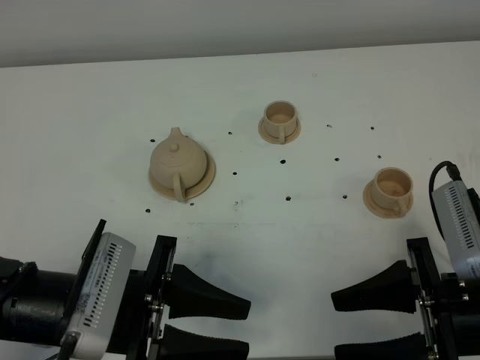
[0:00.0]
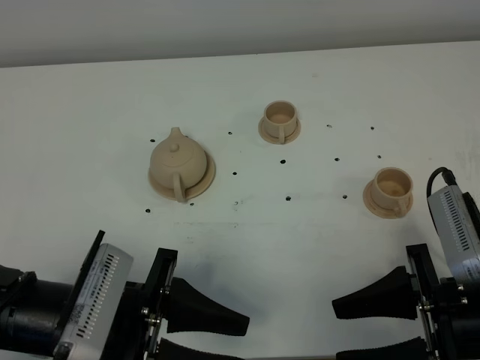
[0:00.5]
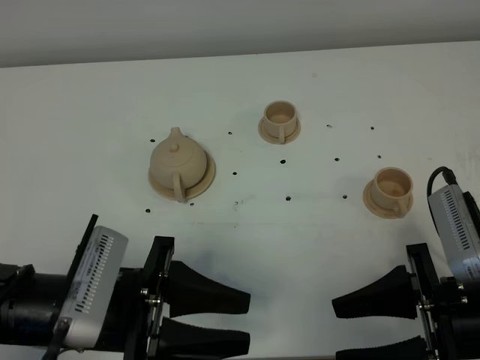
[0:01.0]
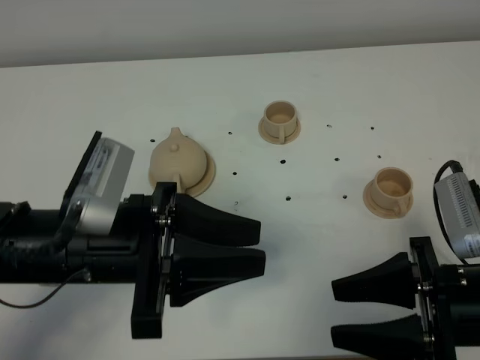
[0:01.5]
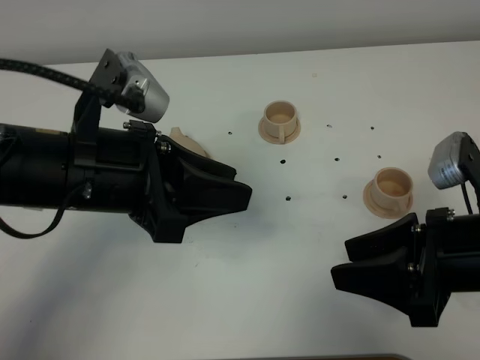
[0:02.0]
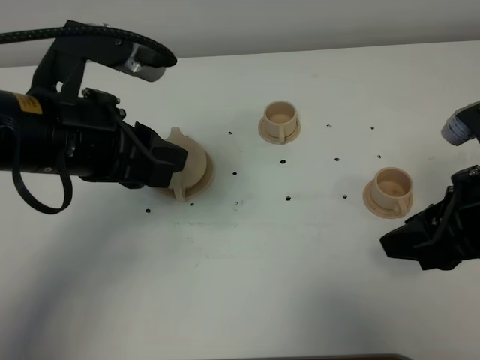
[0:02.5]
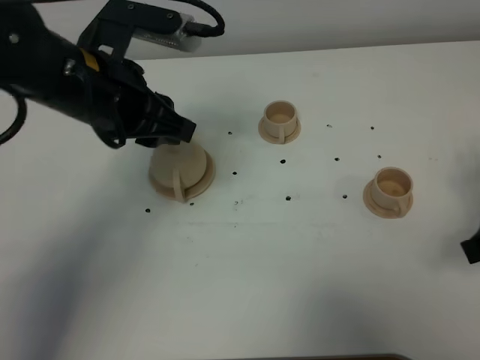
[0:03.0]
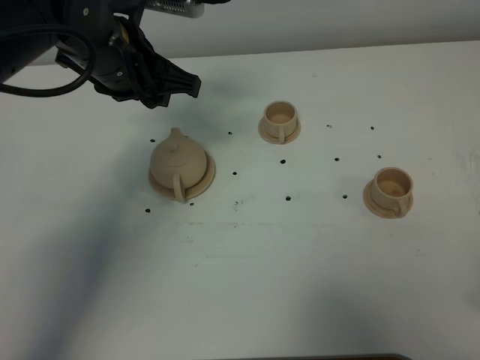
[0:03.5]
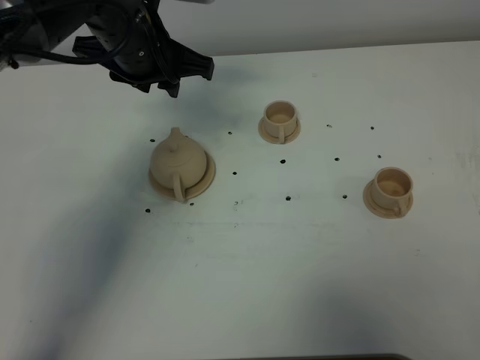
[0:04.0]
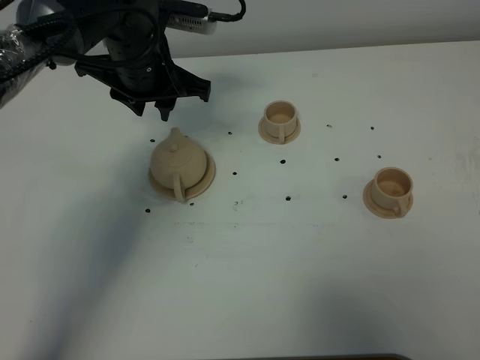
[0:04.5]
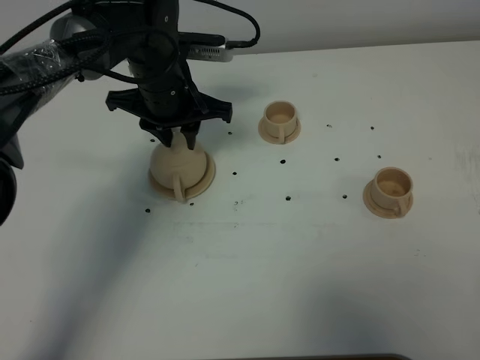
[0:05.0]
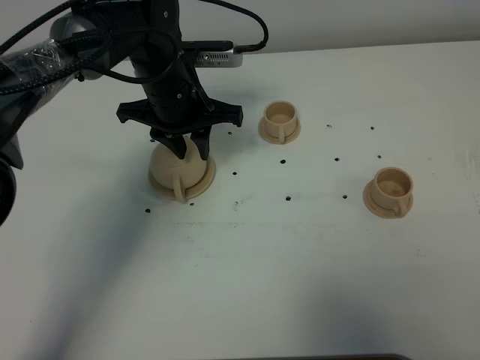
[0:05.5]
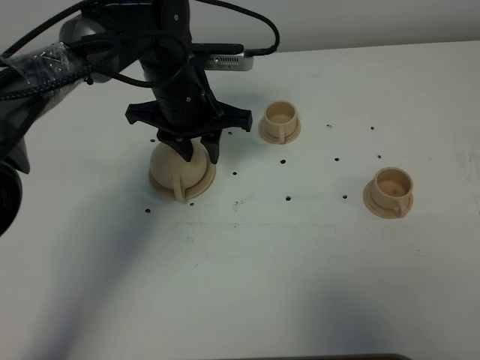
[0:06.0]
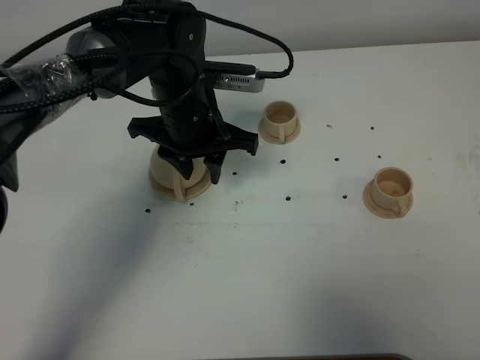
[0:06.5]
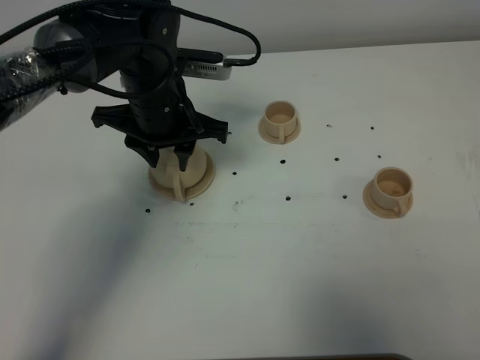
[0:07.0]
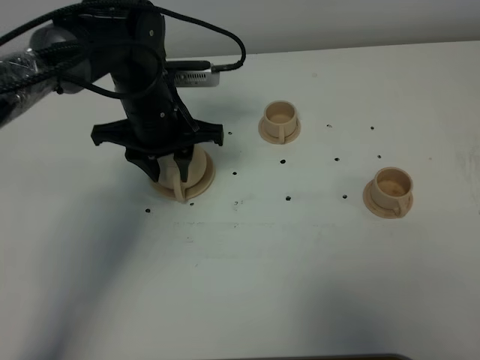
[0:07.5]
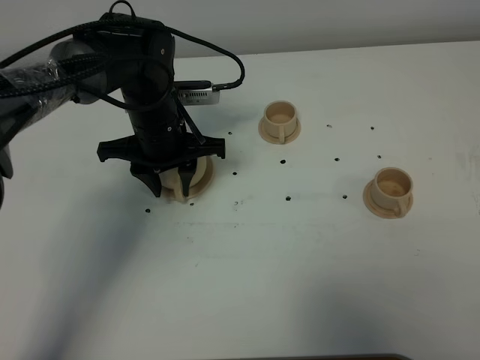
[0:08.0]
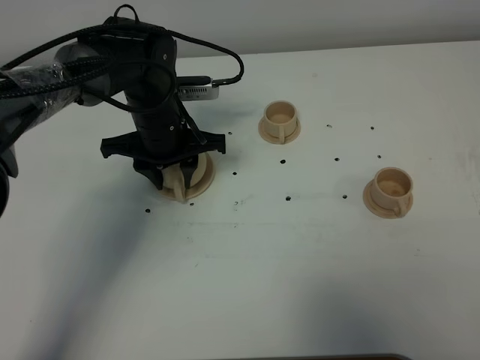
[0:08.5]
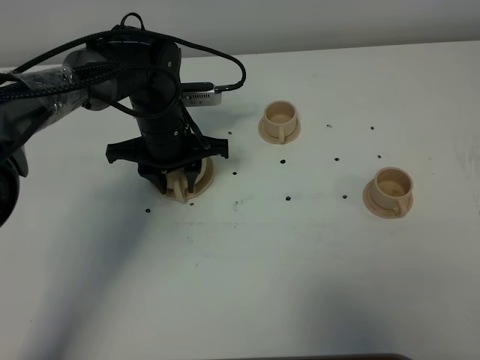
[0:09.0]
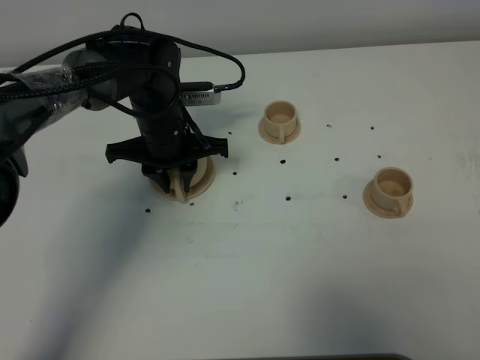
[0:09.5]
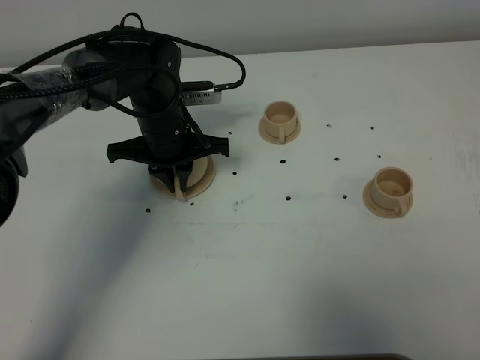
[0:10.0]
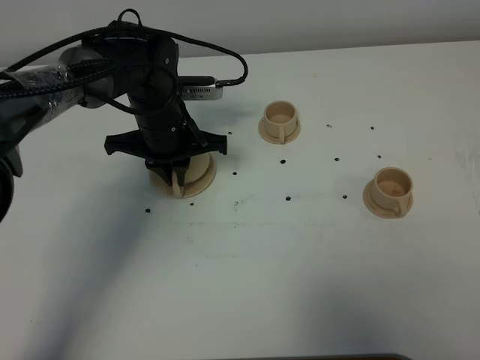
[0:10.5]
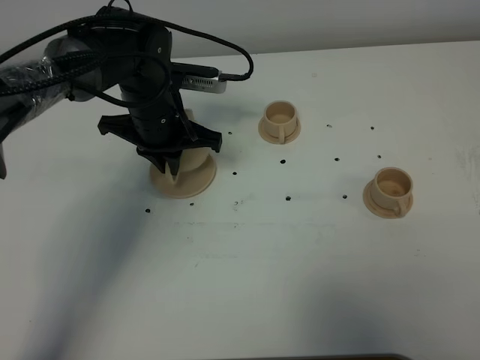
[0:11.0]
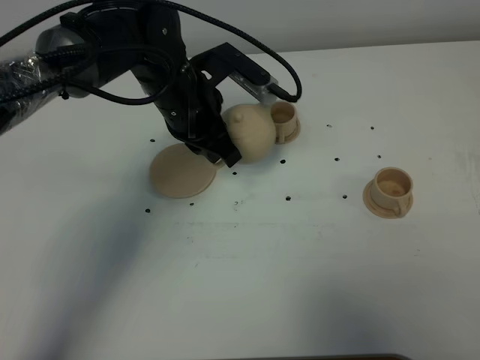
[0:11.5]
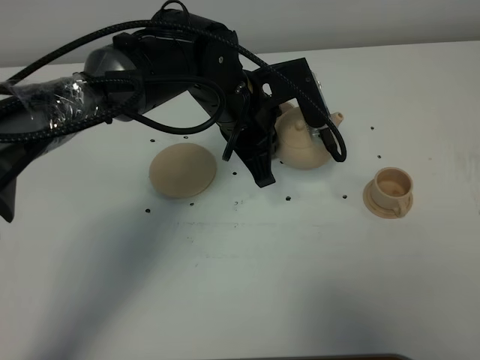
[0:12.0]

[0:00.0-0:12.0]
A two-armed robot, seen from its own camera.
Task of the whole recording: grasp the brown teapot and pour the tea into the two brown teacups one by one, put the brown teapot back in its original place.
Step, 0:00.0 to 0:10.5: Pick up the teapot with the left gripper.
0:00.0 to 0:02.0: The left gripper travels upward and forward by roughly 15 cm.
0:02.0 to 0:04.0: The left gripper shifts roughly 20 cm forward. Meanwhile the right gripper travels backward and to the right by about 15 cm.
0:04.0 to 0:06.0: The left gripper travels downward by approximately 10 cm.
0:06.0 to 0:08.0: The left gripper moves approximately 5 cm.
0:08.0 to 0:10.0: The left gripper closes.
0:10.0 to 0:12.0: The left gripper is displaced to the right and upward by about 10 cm.

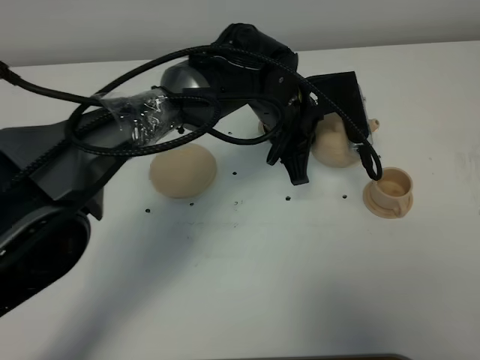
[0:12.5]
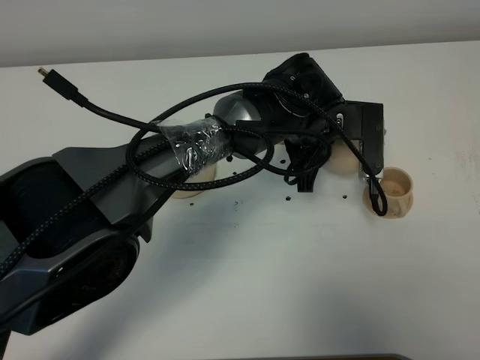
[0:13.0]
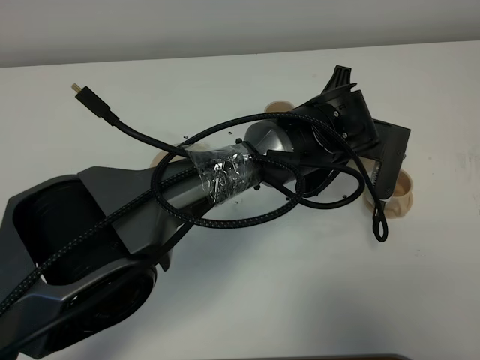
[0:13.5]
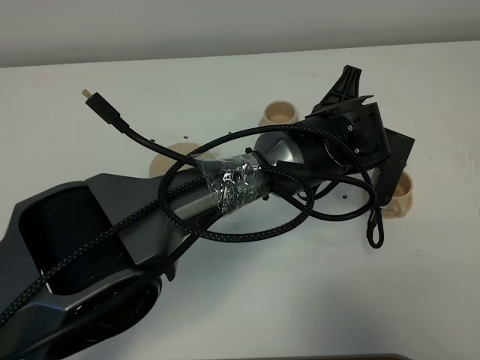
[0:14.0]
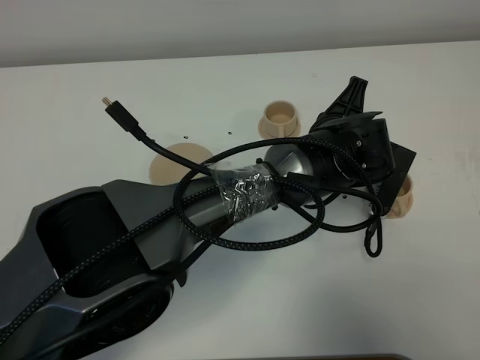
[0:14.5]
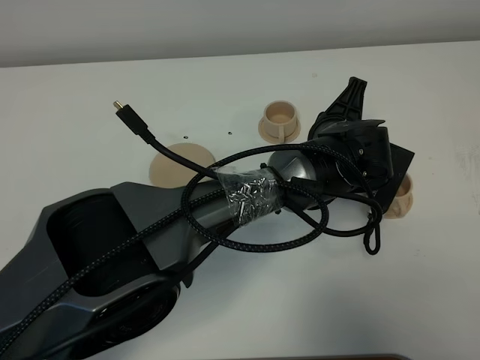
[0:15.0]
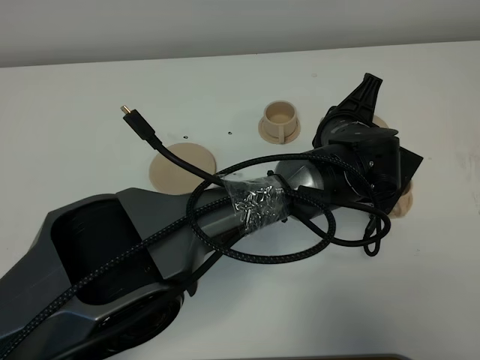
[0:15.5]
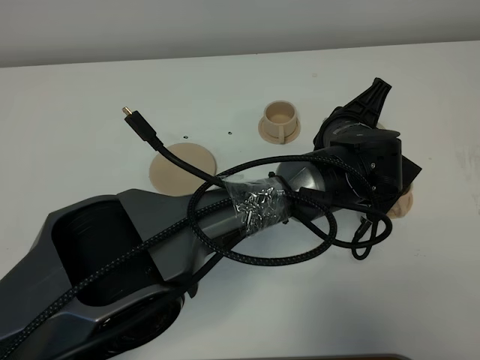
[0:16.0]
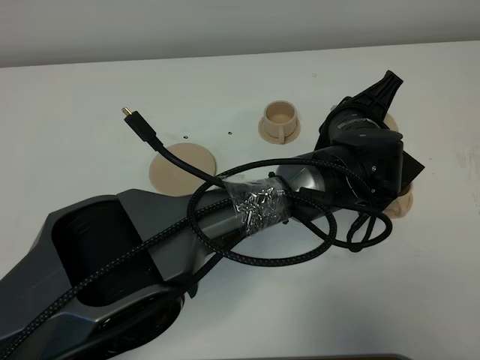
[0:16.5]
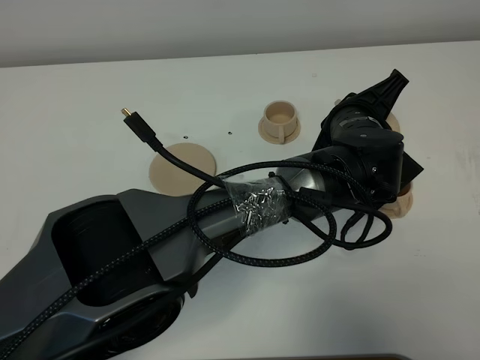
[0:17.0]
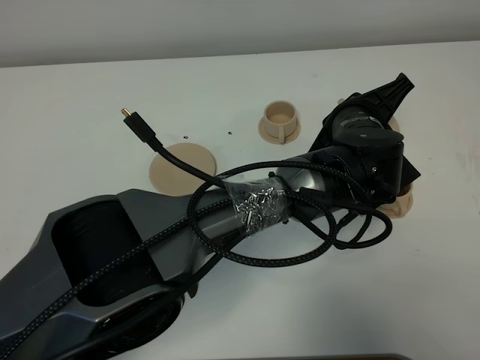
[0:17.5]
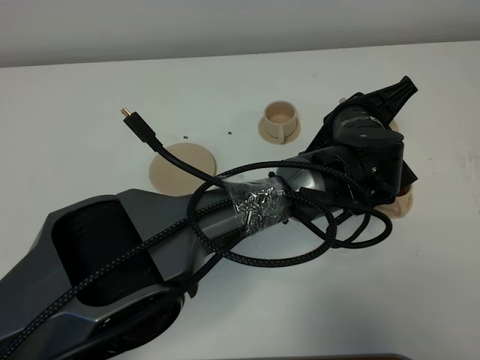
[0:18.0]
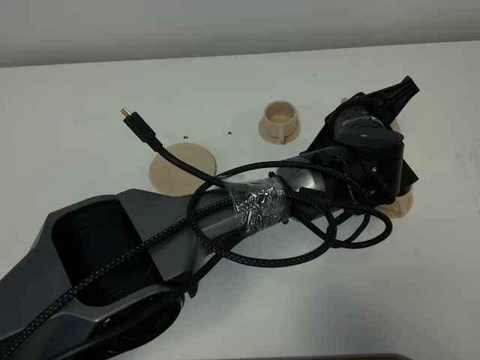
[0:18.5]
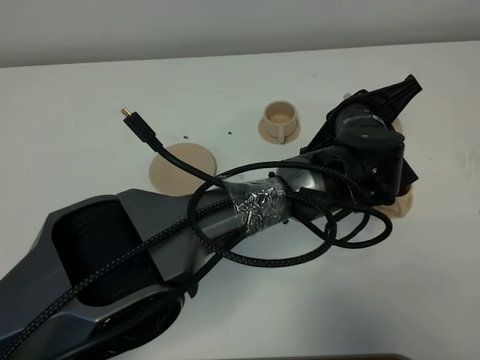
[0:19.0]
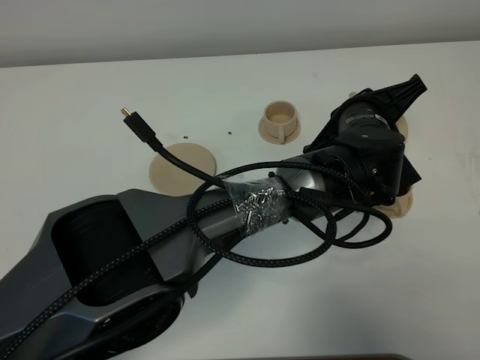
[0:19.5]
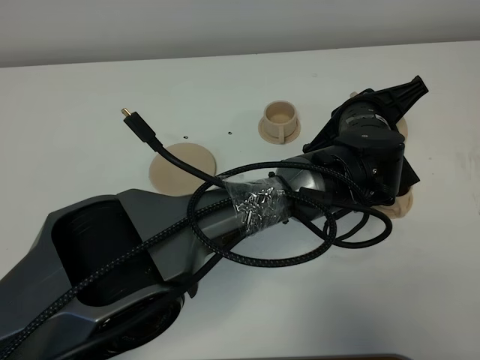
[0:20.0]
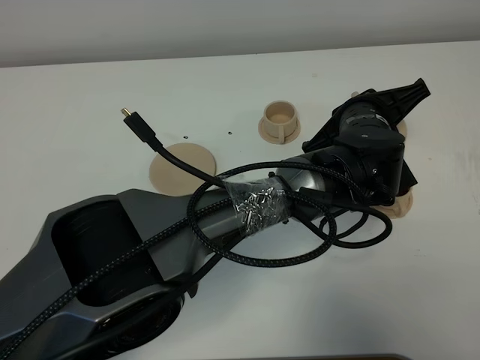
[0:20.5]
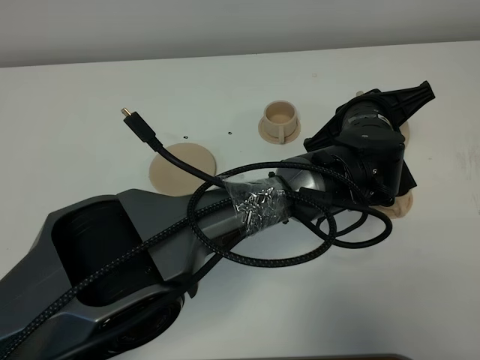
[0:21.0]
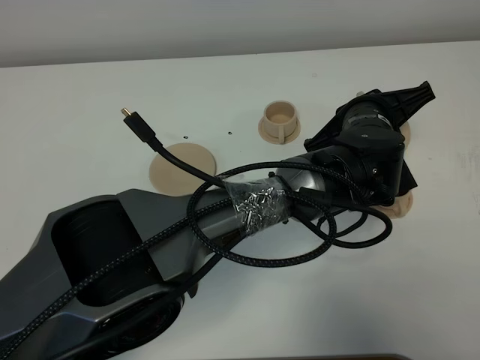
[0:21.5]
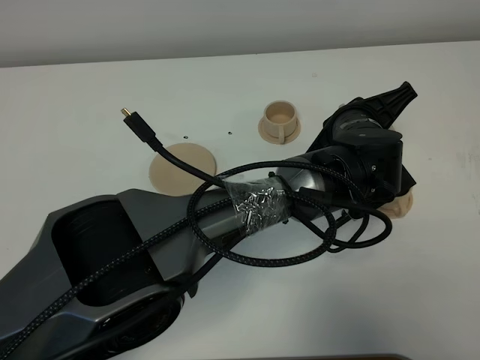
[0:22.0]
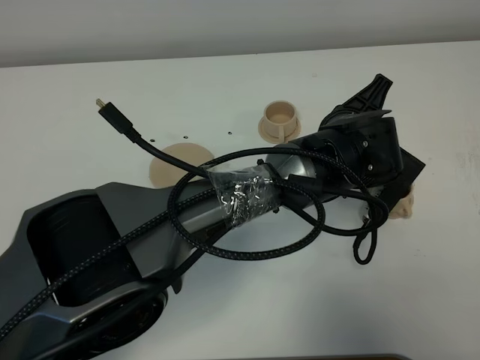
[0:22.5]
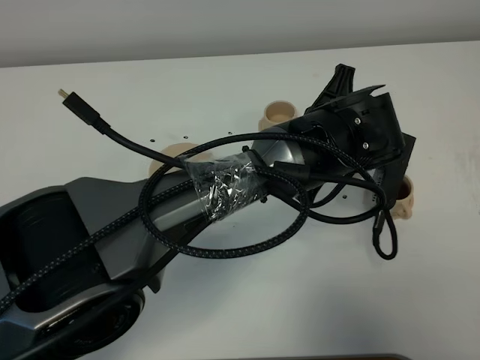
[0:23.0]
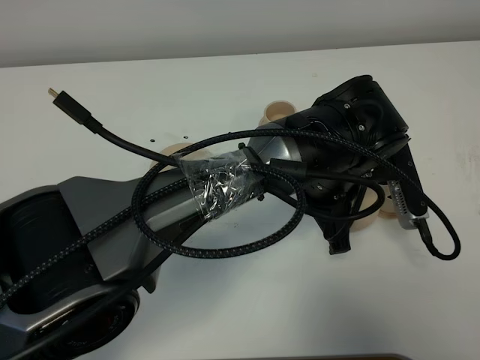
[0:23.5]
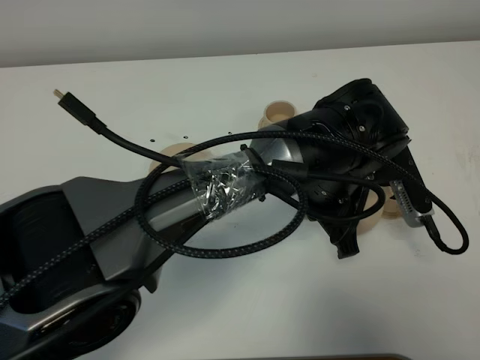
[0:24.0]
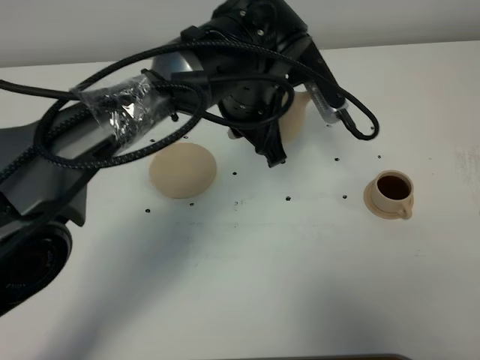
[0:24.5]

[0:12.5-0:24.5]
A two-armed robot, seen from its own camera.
Task of the whole recording: grasp the brown teapot and pour the tea into the two brown teacups one by one, put the brown teapot back in its original place.
0:12.5 to 0:14.5: The left gripper goes roughly 5 cm to the right.
0:16.5 to 0:18.5: There are only small adjustments of the grippers.
0:18.5 to 0:20.5: The grippers stay close to where they were, moving slightly.
0:22.5 to 0:24.5: The left gripper goes some 15 cm to the left and upward.

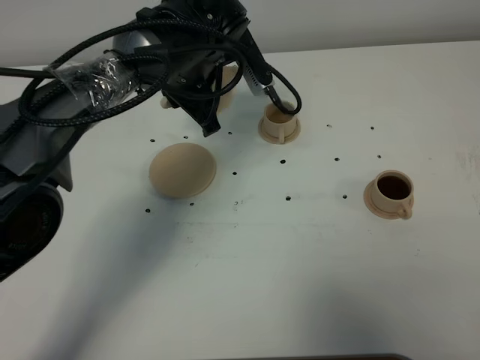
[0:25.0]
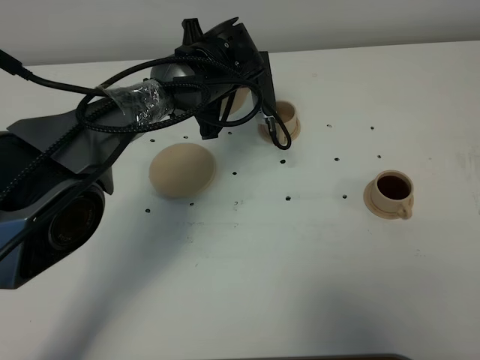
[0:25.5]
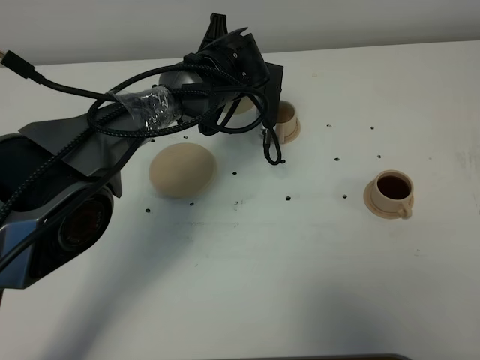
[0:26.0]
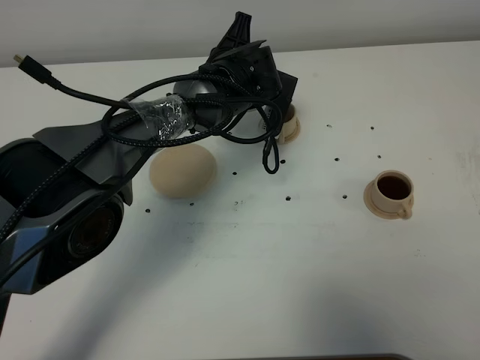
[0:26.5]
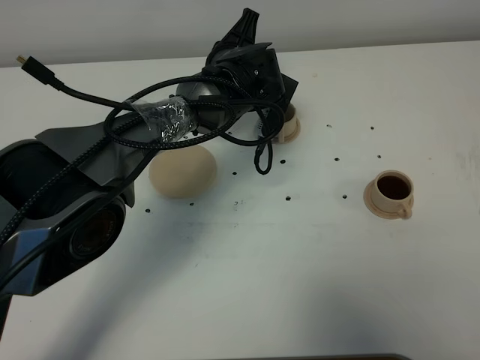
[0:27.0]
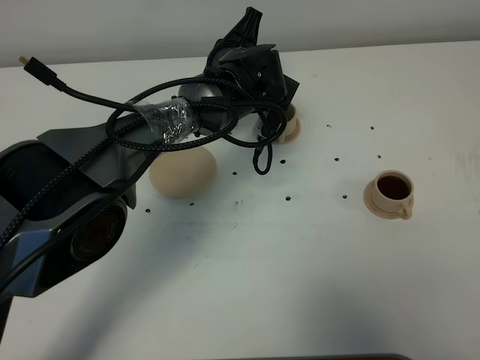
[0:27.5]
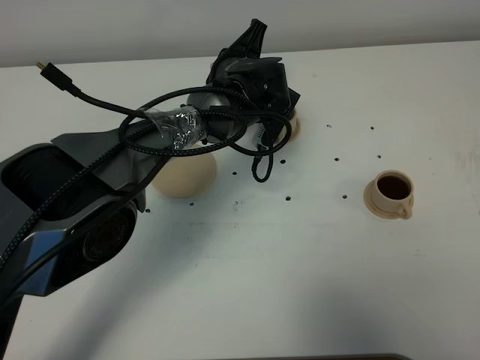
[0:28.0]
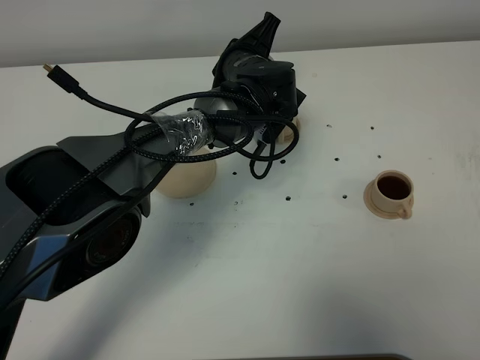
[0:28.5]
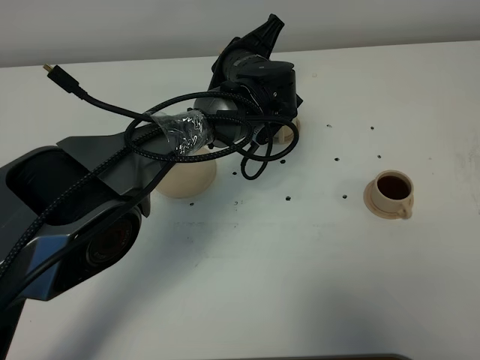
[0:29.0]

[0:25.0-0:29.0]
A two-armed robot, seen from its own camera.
Task of the whole recording: grasp the brown teapot and pour the tea into the two brown teacups one by one, put the brown teapot back in its original place.
0:25.0 to 0:27.0: The left gripper shifts about 10 cm downward and to the right.
0:27.0 to 0:29.0: The grippers stay close to where they were, moving slightly.
